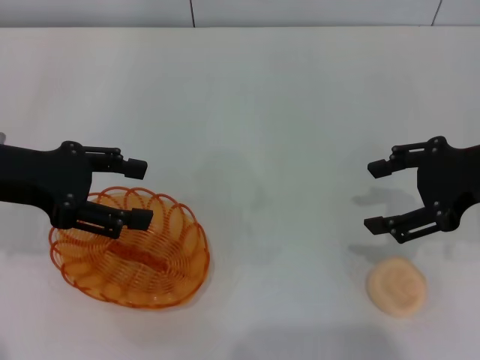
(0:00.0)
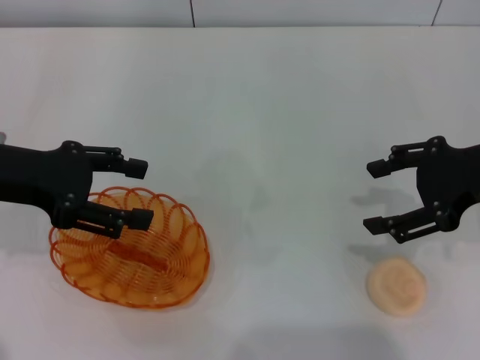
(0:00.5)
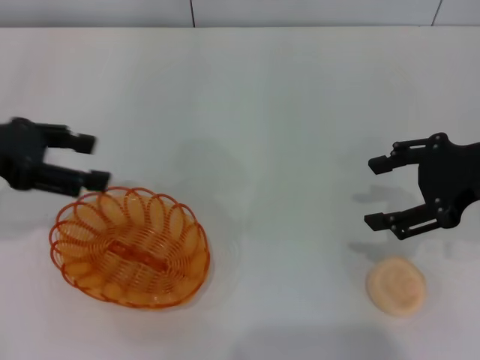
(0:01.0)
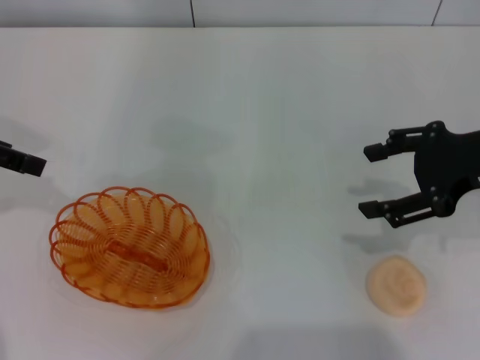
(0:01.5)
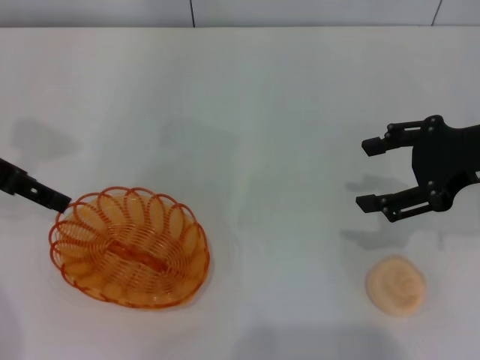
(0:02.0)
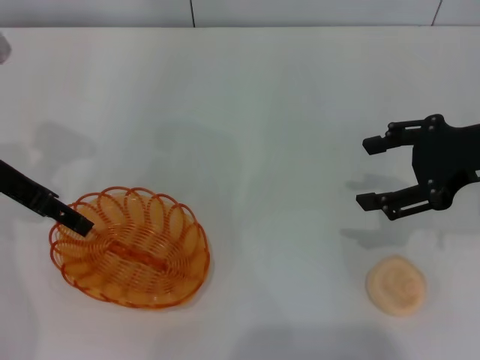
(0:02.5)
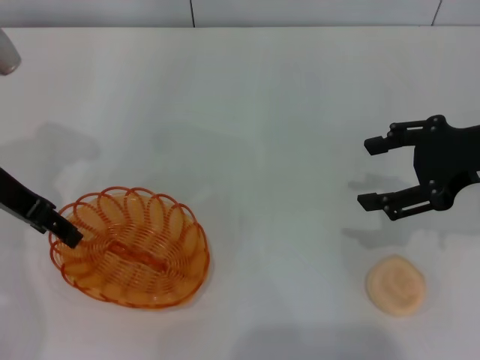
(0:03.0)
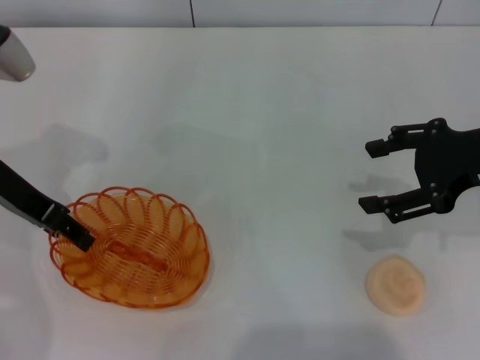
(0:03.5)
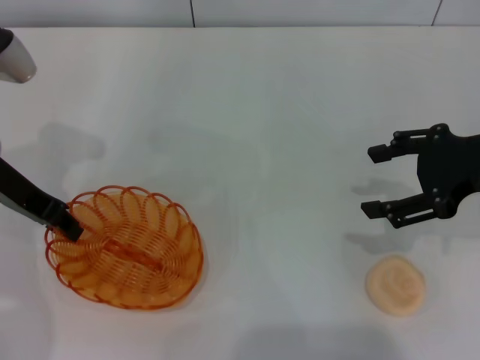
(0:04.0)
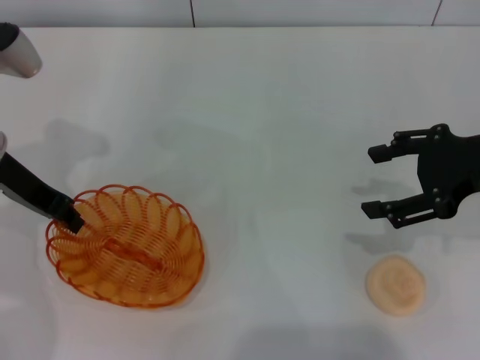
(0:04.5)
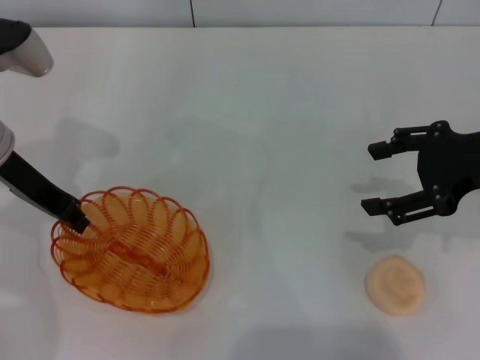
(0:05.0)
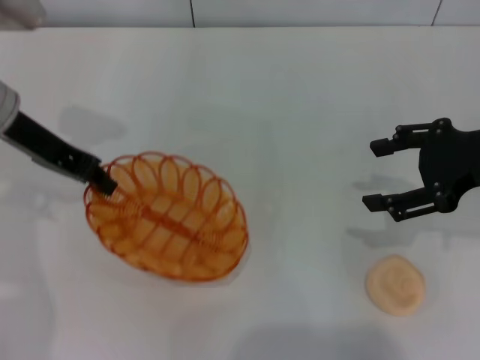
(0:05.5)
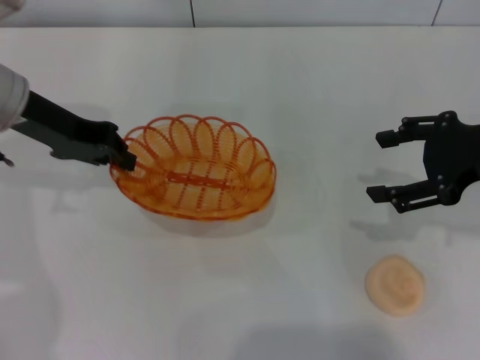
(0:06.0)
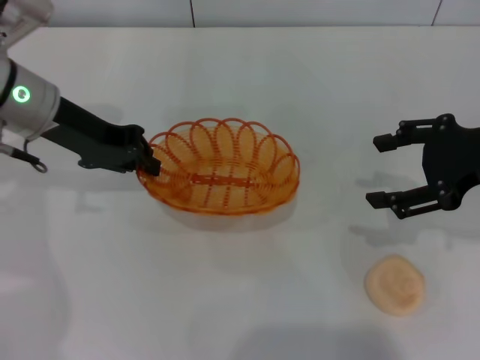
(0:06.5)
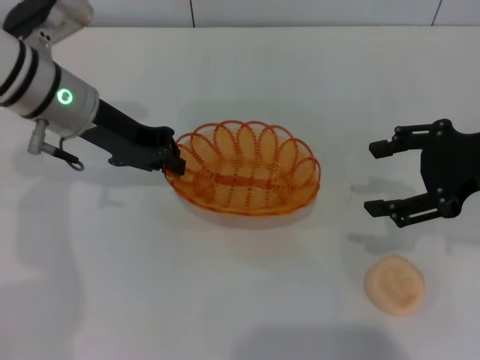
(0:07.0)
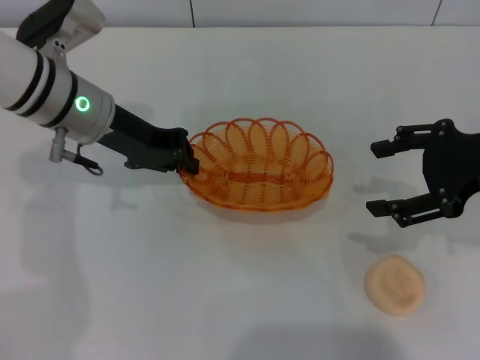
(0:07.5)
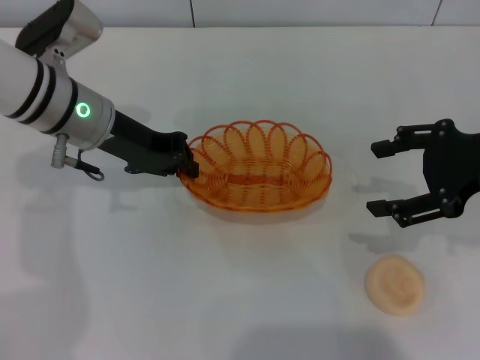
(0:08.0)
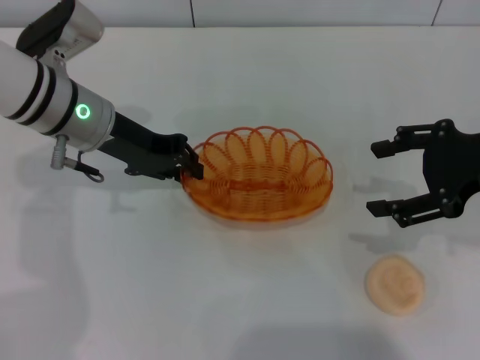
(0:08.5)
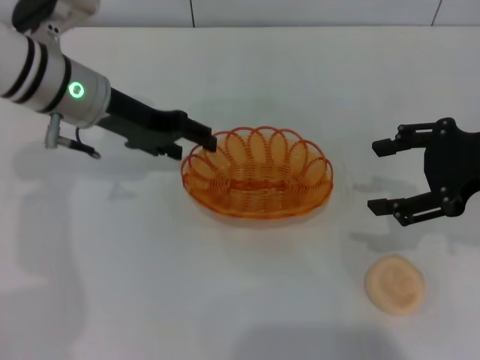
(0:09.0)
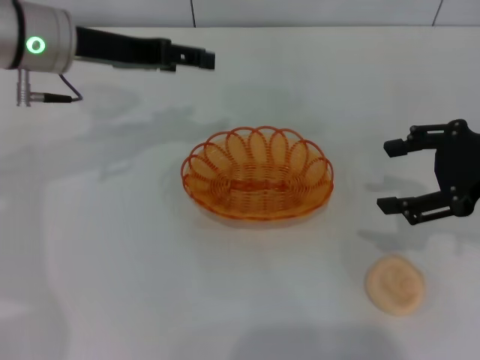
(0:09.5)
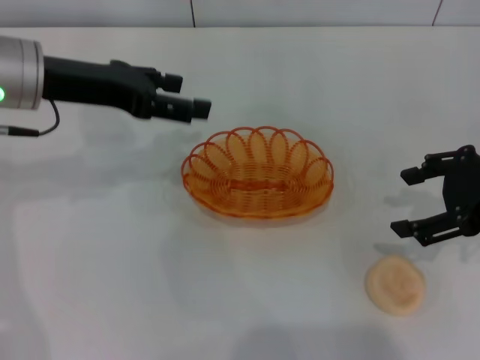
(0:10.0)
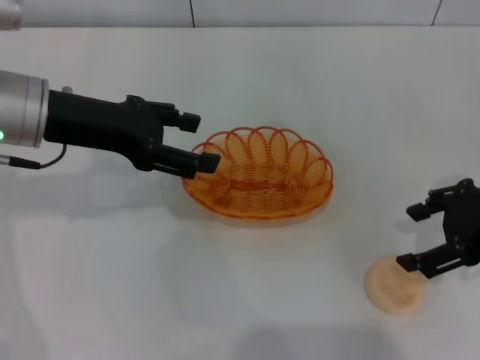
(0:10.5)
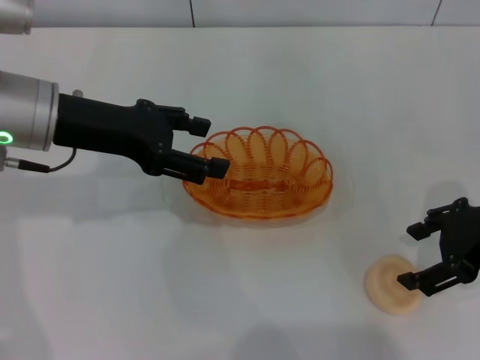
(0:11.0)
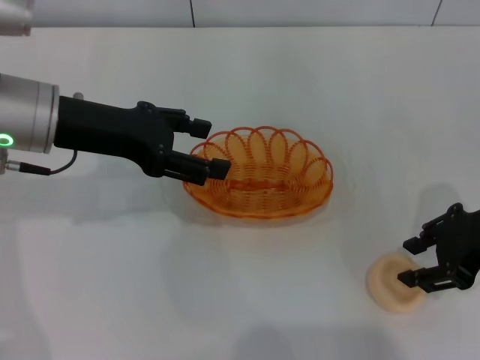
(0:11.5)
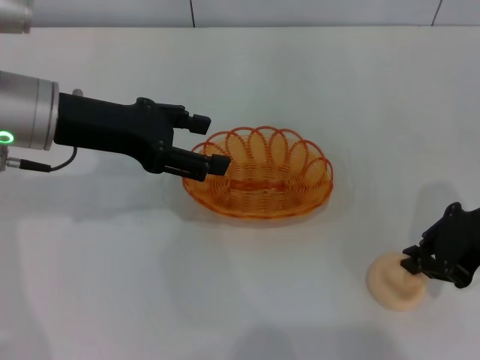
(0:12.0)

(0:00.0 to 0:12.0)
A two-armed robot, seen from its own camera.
Step, 0:00.0 - 0:06.0: Pick up the basket with the left gripper.
Step, 0:06.5 - 0:09.0: Place the basket in the center of view with the left gripper.
0:02.0 - 0:04.0: The left gripper changes place by roughly 5 cm, and closes its fingers.
0:04.0 - 0:06.0: The left gripper closes its fingers.
0:06.0 - 0:08.0: The left gripper is displaced to the right by some 5 cm.
0:08.0 - 0:10.0: The left gripper is displaced upward by some 5 cm, and opens its fingers.
0:10.0 - 0:12.0: The right gripper closes up.

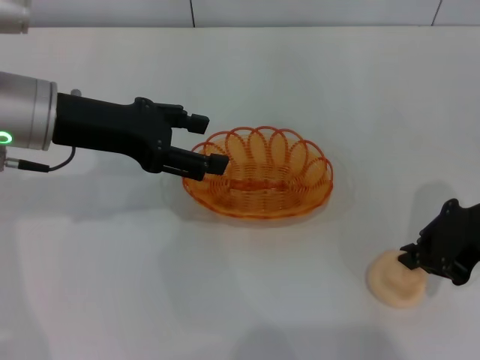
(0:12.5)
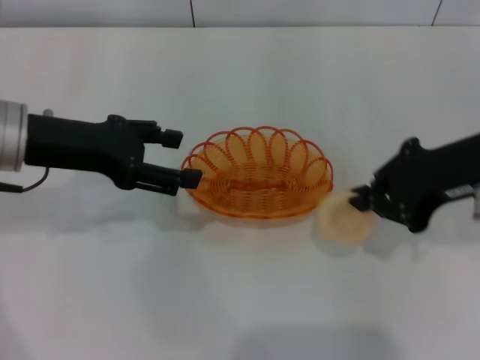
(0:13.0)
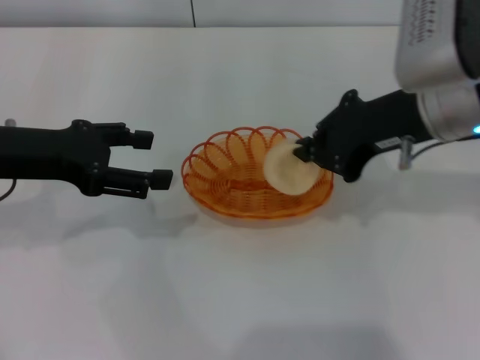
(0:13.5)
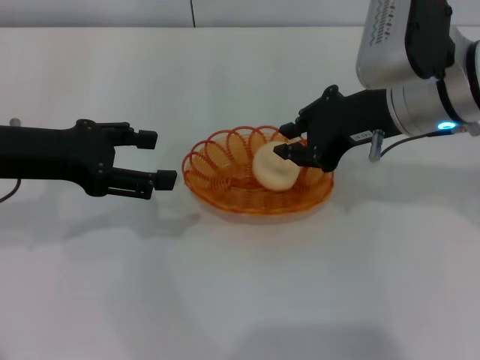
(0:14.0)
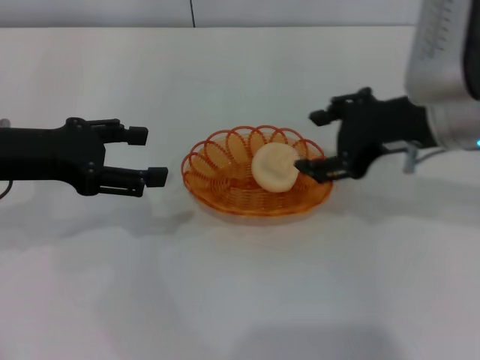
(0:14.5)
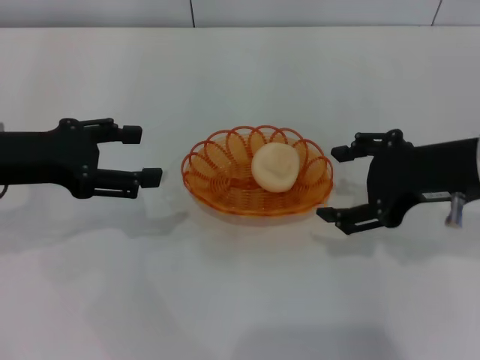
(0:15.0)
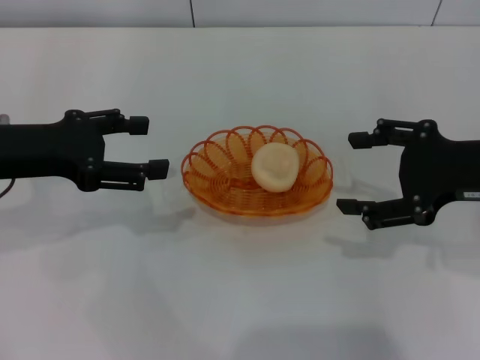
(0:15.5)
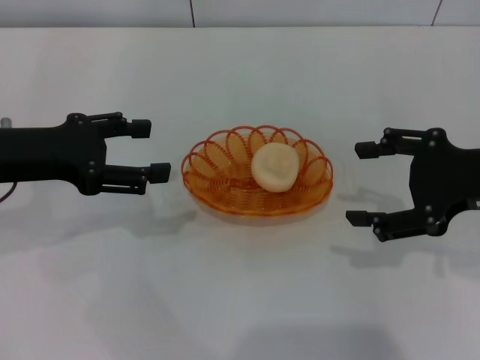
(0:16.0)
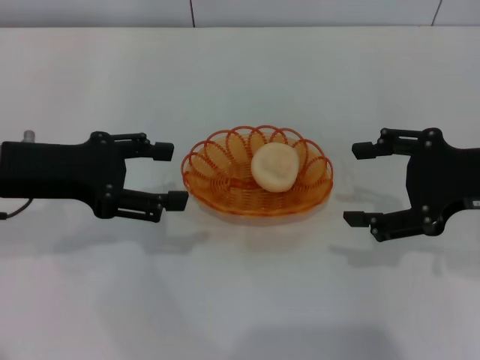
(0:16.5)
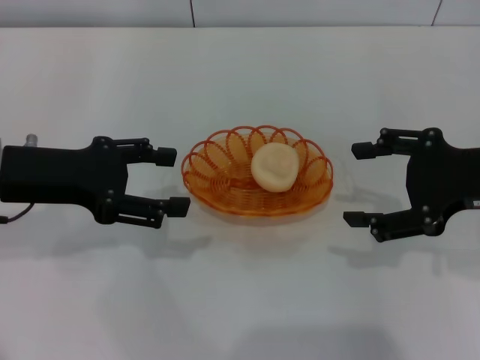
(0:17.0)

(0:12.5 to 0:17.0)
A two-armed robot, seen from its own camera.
Step, 0:13.5 - 0:14.5: Place the egg yolk pastry into the basket with the right gripper.
0:12.5 - 0:14.5: The grippers both shift to the left by some 5 cm. The right gripper opens its fingers.
0:14.5 - 0:17.0: The right gripper moves to the right and backward, about 10 cm, and opens up.

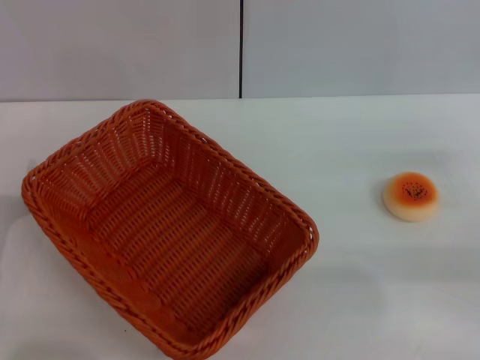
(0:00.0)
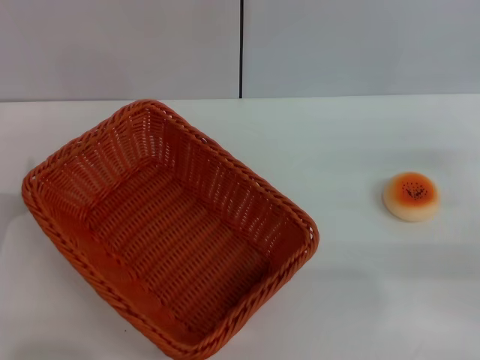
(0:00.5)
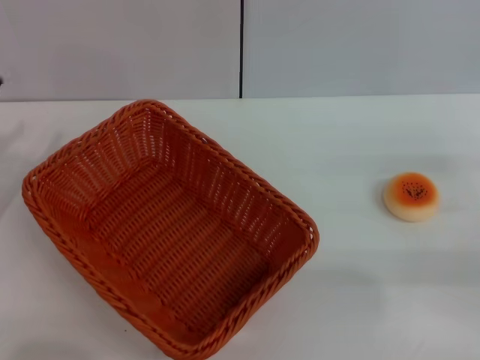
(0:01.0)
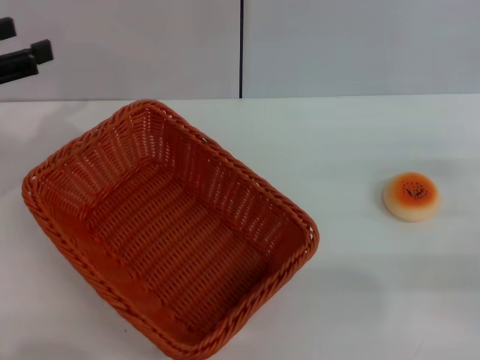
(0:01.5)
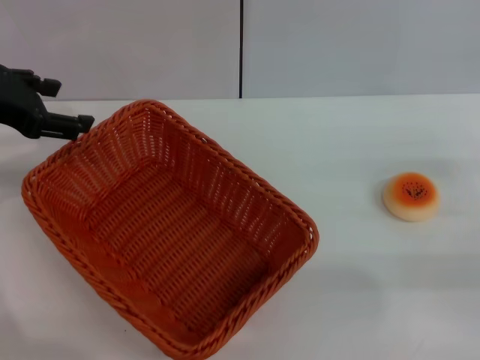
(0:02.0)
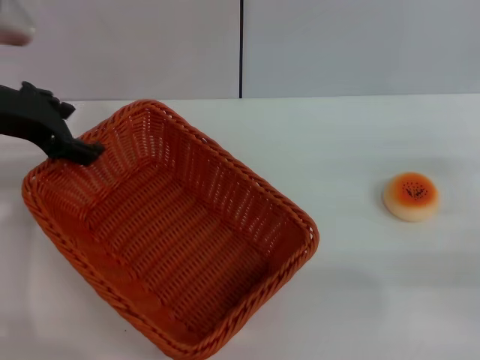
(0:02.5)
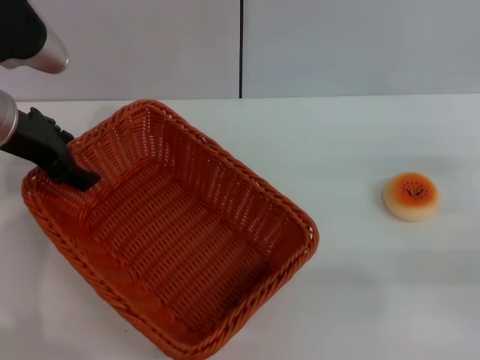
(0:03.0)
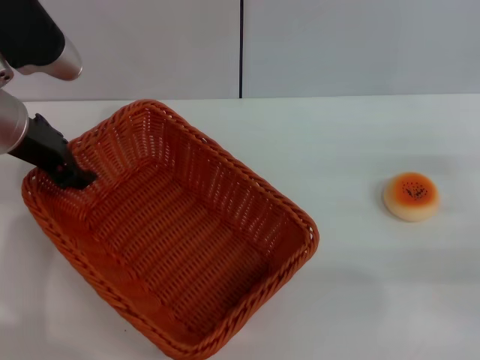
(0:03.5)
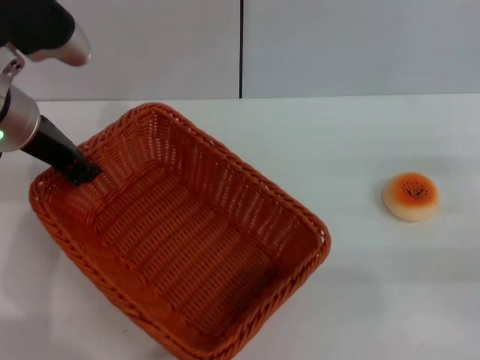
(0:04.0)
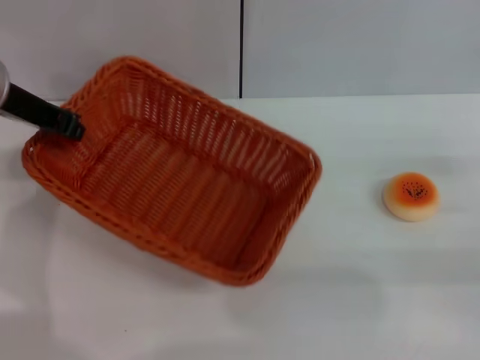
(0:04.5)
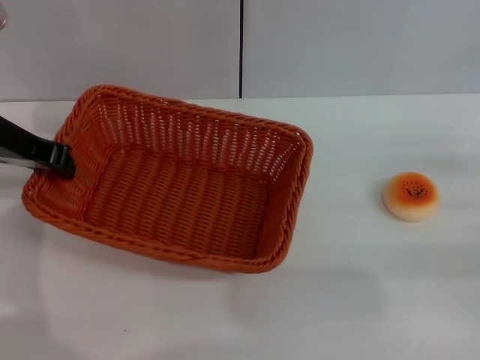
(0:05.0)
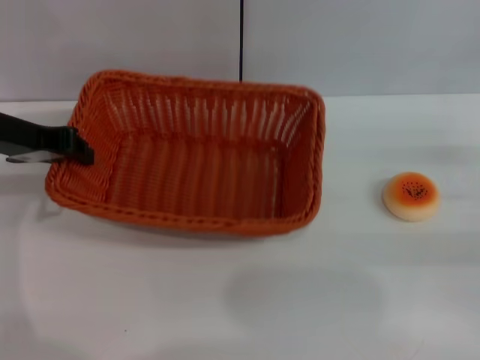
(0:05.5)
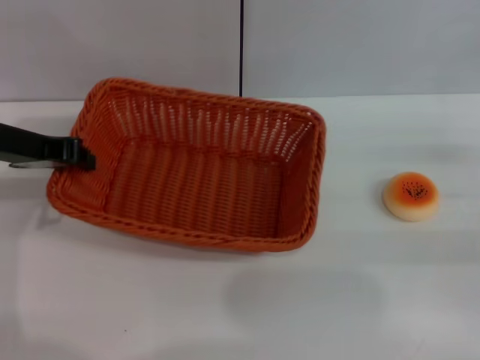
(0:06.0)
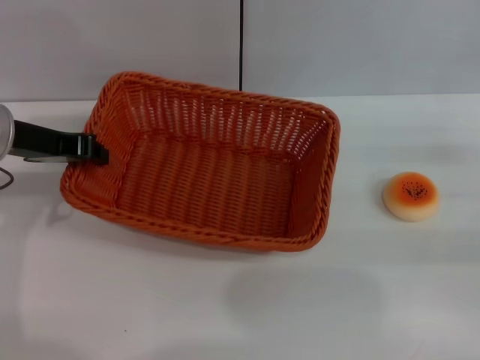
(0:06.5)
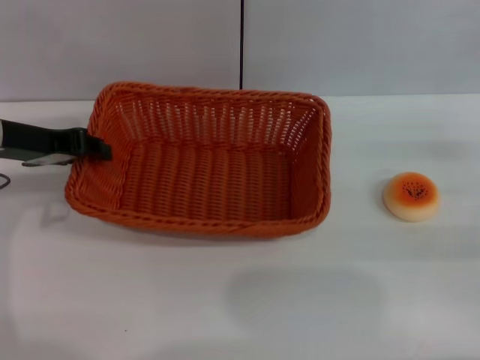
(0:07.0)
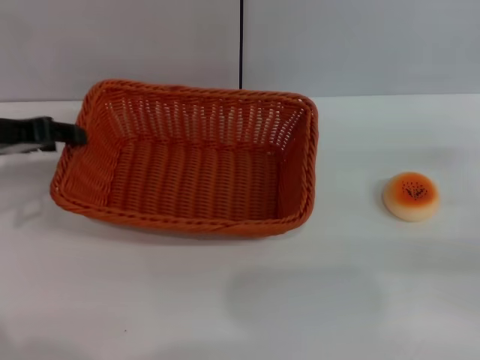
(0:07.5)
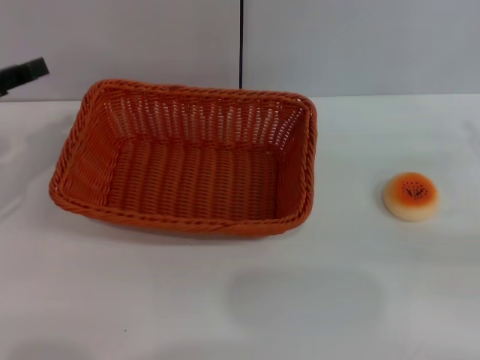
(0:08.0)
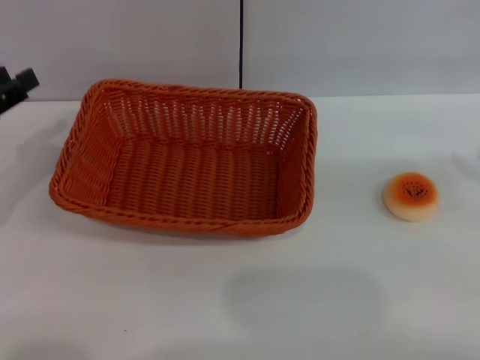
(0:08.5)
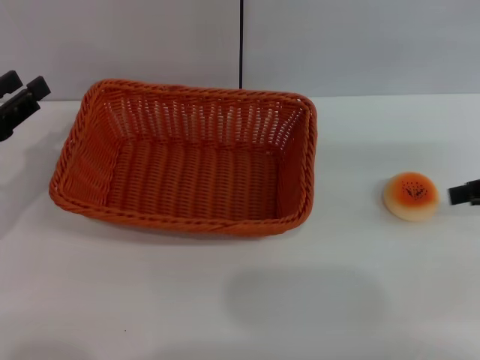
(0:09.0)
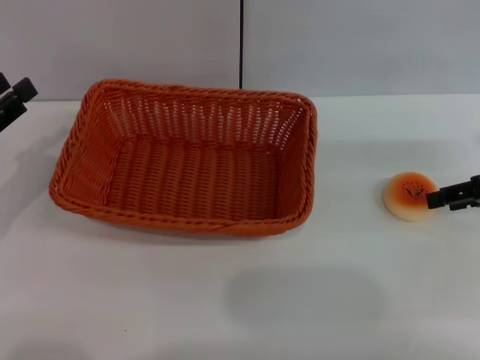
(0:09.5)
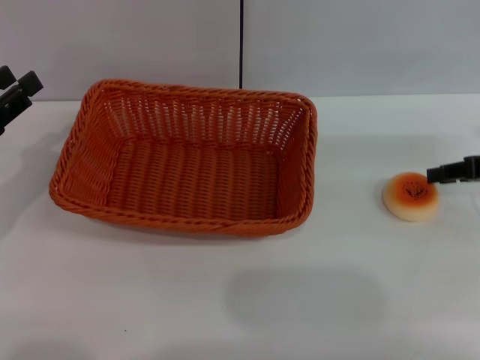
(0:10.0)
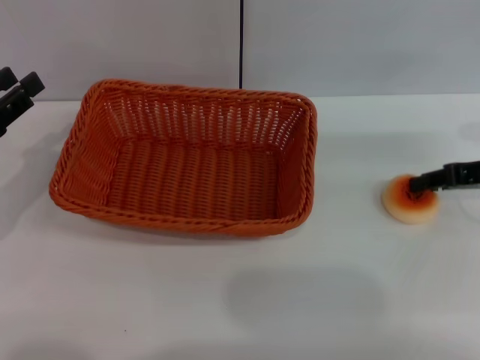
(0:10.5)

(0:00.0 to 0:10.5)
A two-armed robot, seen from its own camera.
Step, 0:00.0 - 0:07.5: Move the basket to the center of view with the left gripper.
0:00.0 - 0:02.0: The left gripper shifts approximately 25 cm upward and forward.
0:02.0 - 0:04.0: The left gripper travels to the right by approximately 10 cm, and closes.
0:06.5 - 0:08.5: The left gripper moves to the left and backward, about 10 cm, and opens up. The right gripper goes approximately 10 cm upward.
0:08.5 - 0:10.5: The right gripper shifts about 10 cm to the left, forward and downward, and closes.
